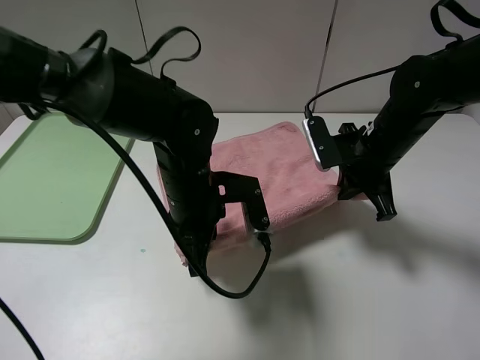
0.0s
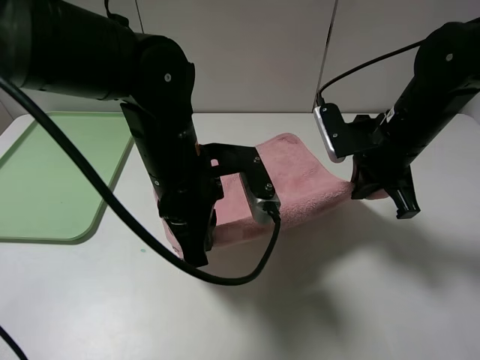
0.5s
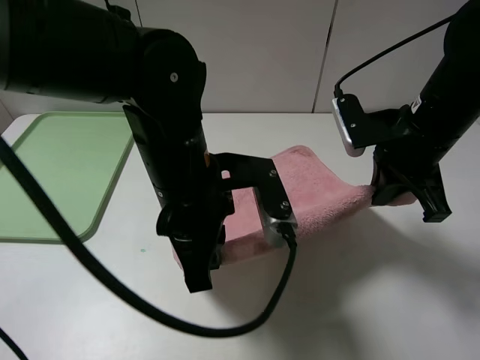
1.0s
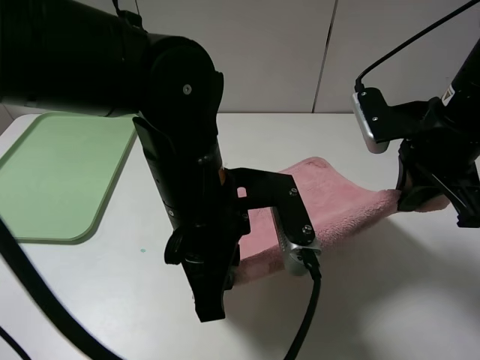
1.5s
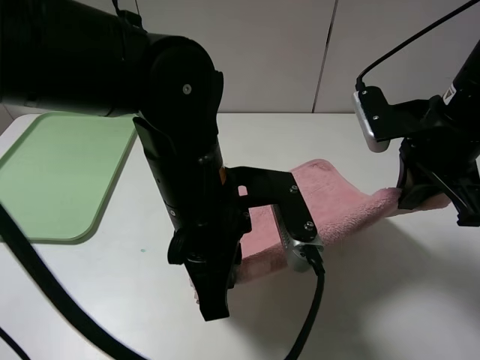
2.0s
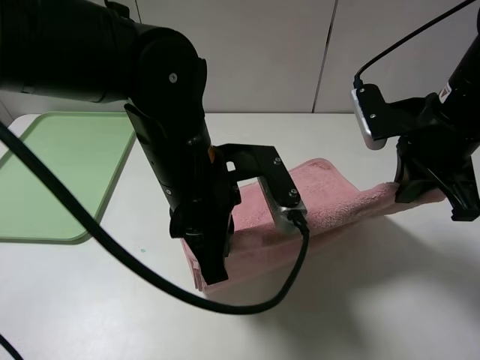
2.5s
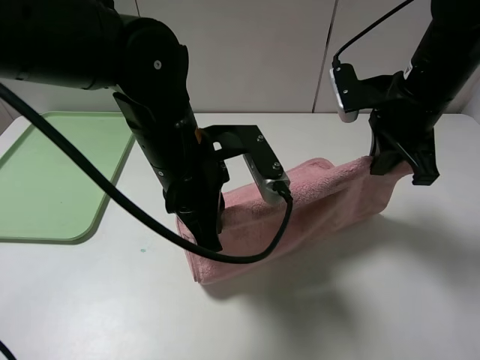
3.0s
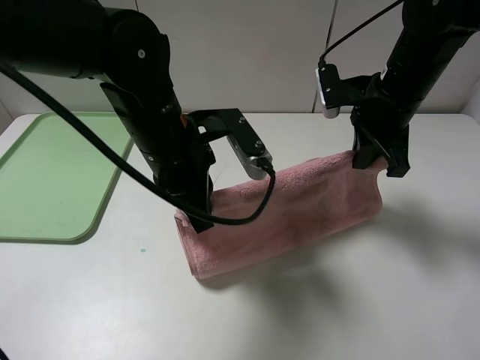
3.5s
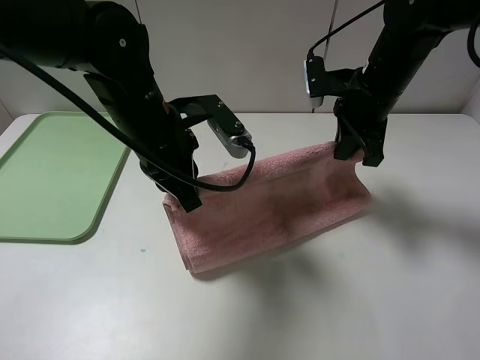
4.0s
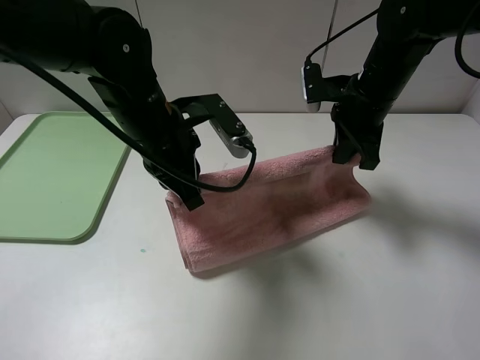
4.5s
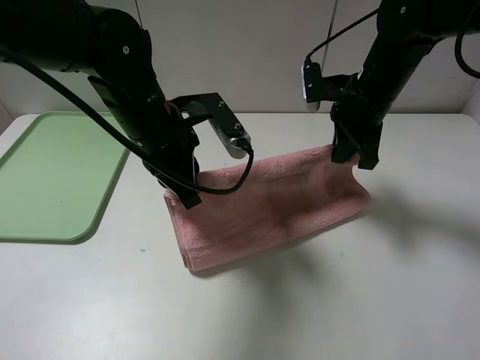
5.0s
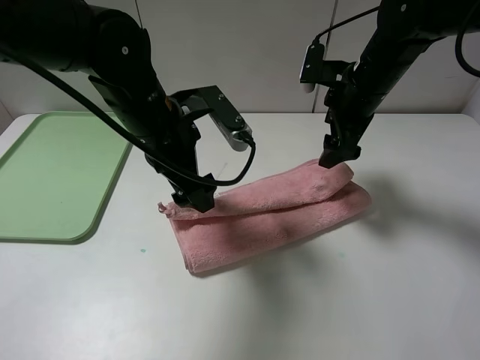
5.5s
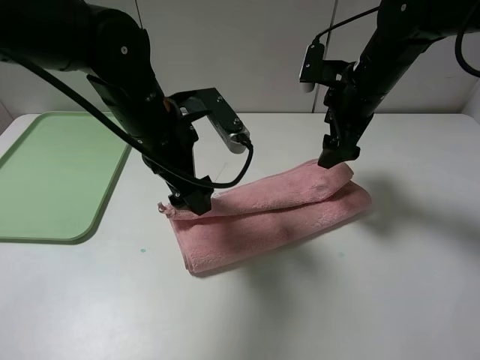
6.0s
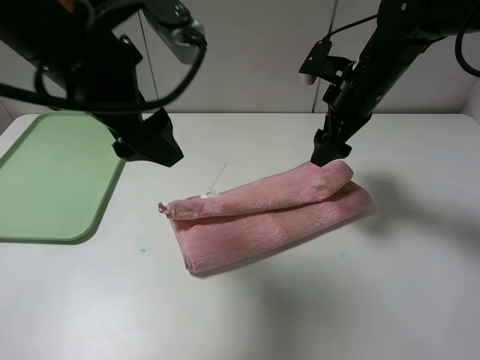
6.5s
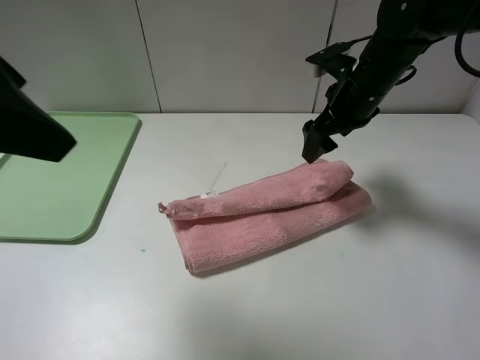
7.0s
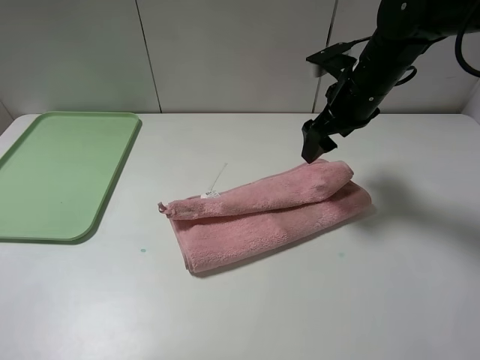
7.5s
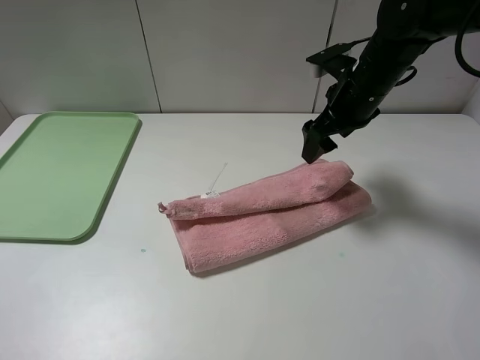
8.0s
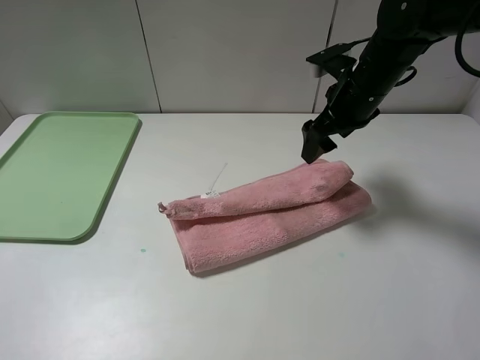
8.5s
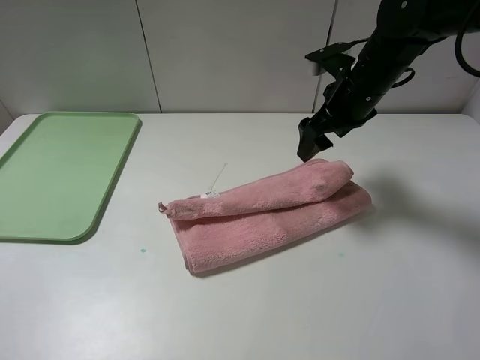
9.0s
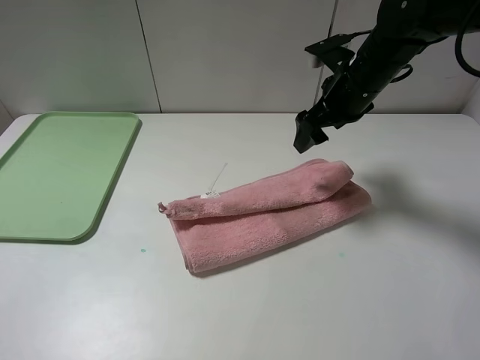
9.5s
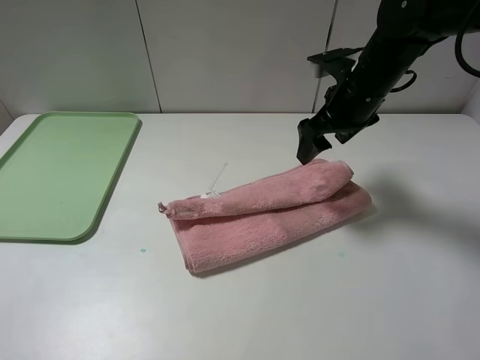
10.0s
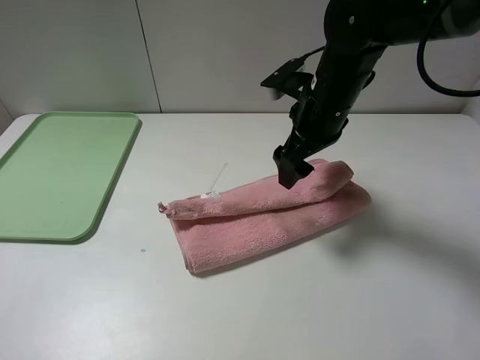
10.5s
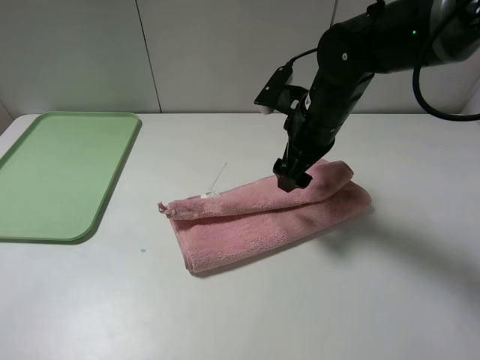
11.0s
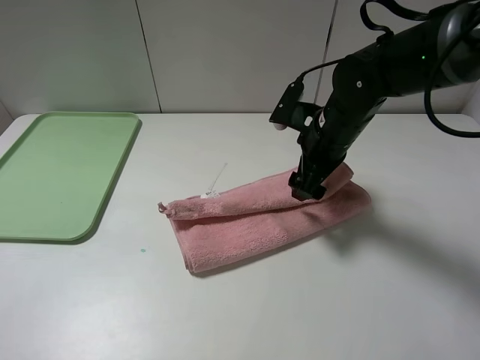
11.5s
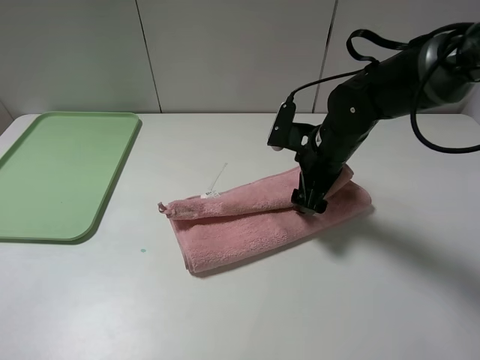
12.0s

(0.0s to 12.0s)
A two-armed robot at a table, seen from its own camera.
Step, 0.0s - 5.0s: Fold the pink towel upwards.
0.0s - 2.0s: The left gripper travels backward and upward by some 10 cm. Meanwhile the right gripper travels upward and backward by some 10 cm.
2.0s - 4.0s: The left gripper moves forward and to the left, some 10 cm, while the right gripper shifts roughly 10 cm forward.
4.0s - 6.0s: The right gripper opens up. Meanwhile the left gripper opens its fingers.
6.0s - 8.0s: The left gripper travels backward, to the left and upward by roughly 40 cm.
10.0s - 12.0s: The right gripper moves downward, approximately 10 cm.

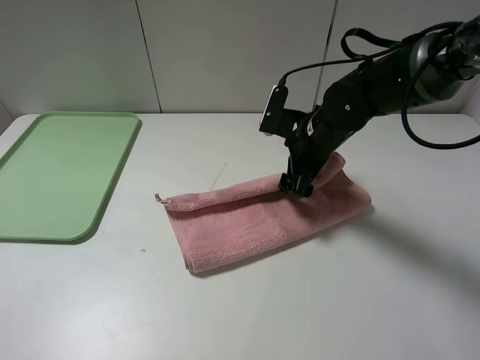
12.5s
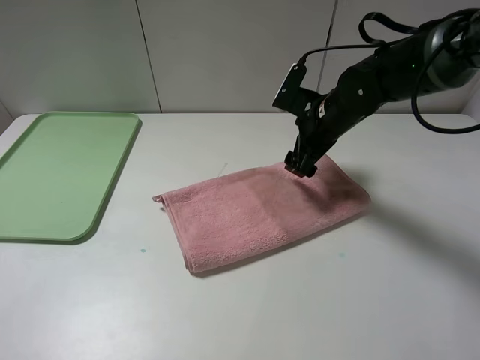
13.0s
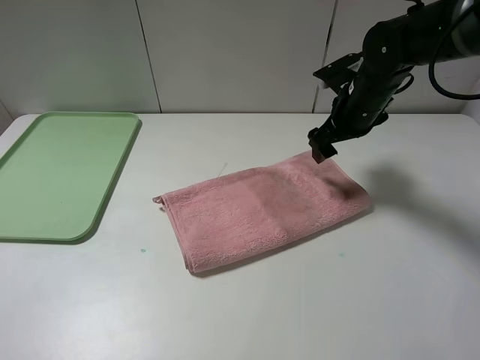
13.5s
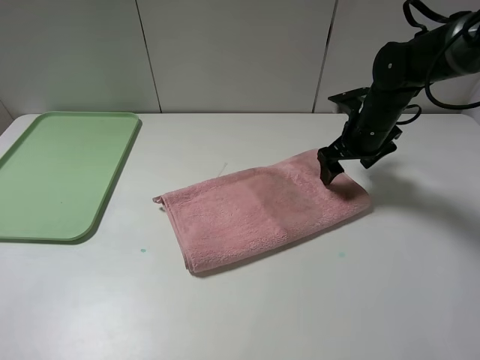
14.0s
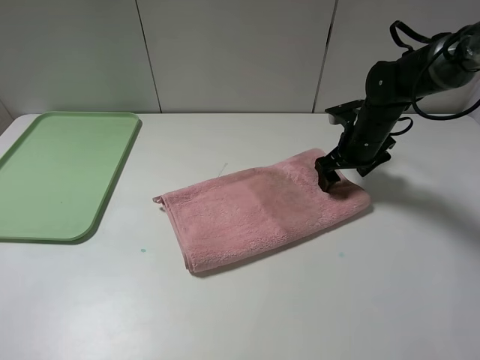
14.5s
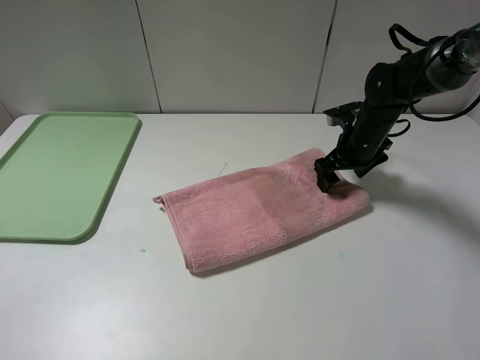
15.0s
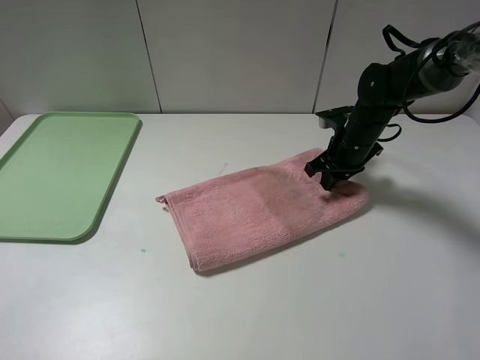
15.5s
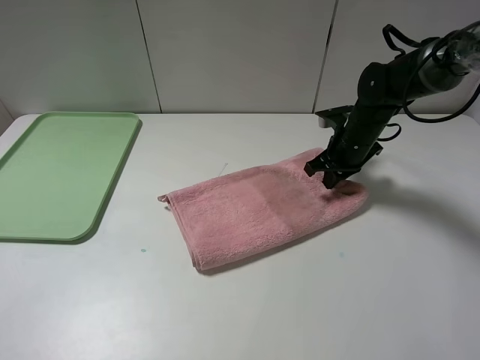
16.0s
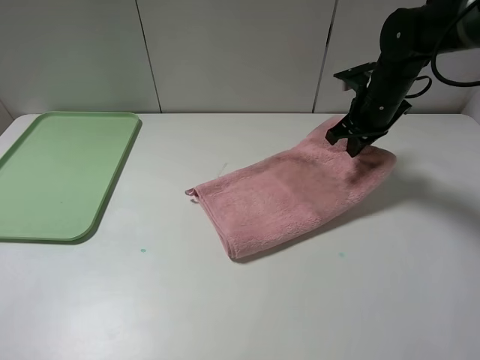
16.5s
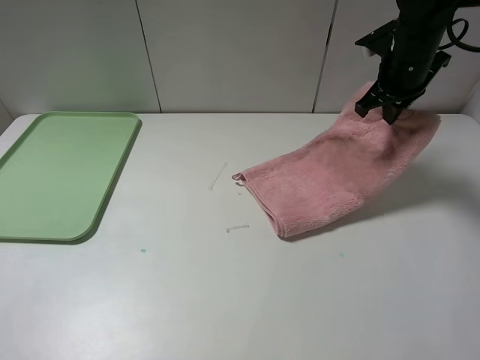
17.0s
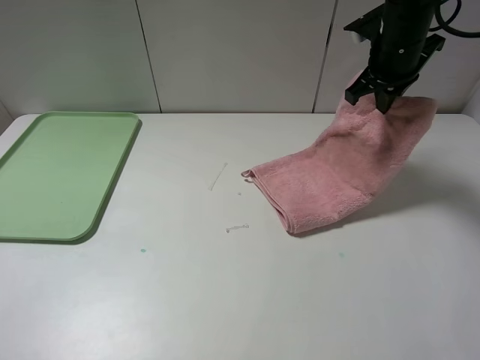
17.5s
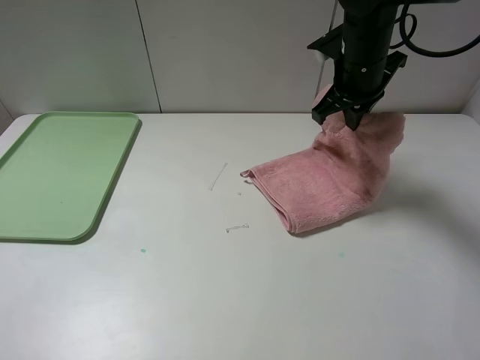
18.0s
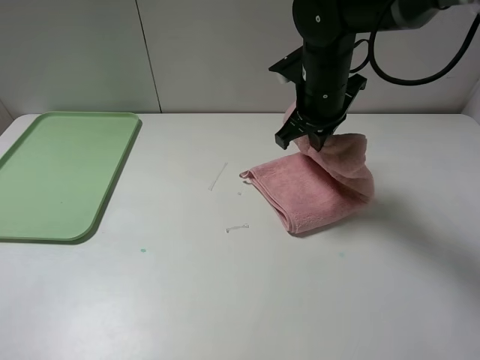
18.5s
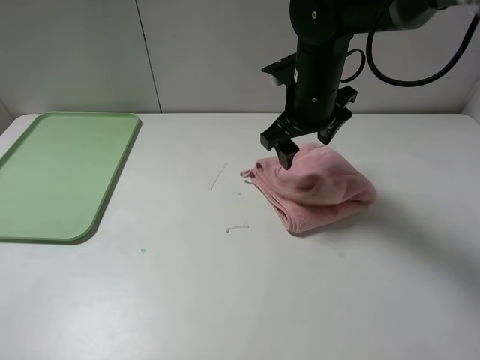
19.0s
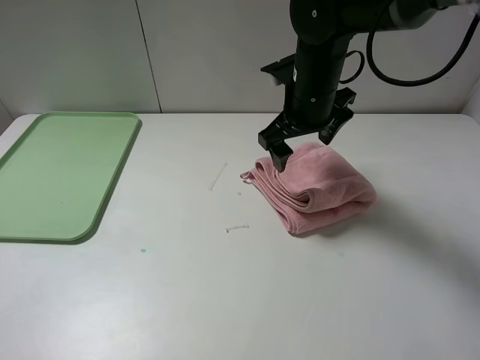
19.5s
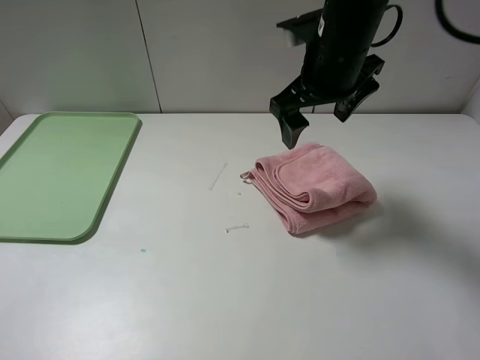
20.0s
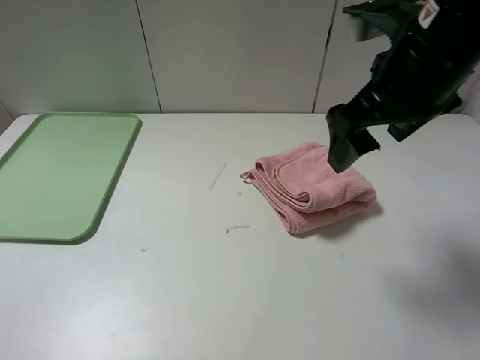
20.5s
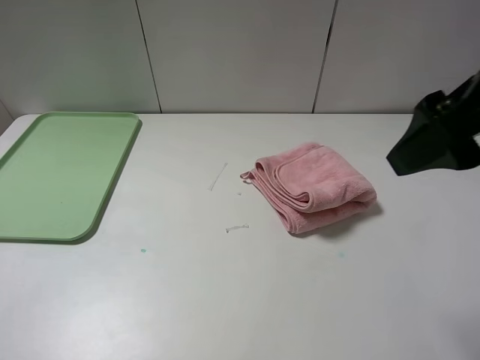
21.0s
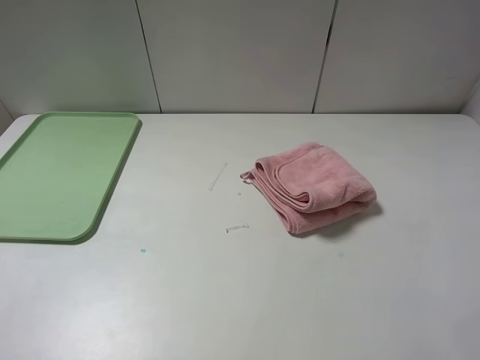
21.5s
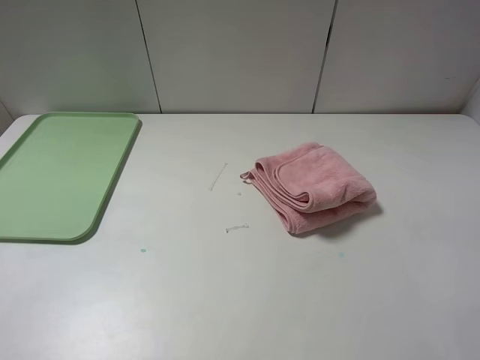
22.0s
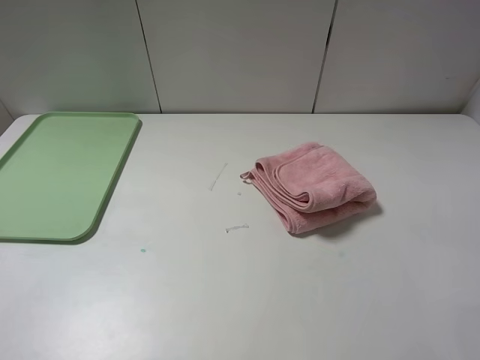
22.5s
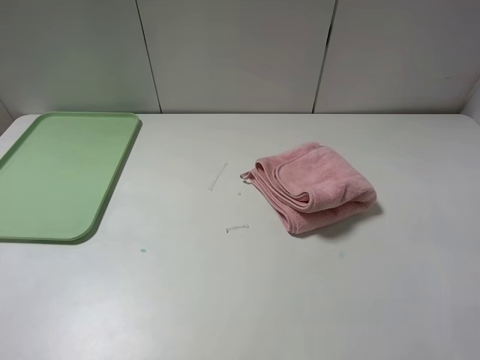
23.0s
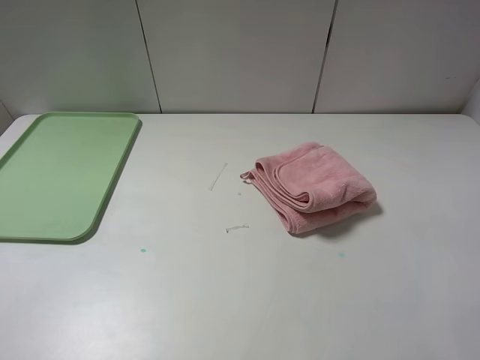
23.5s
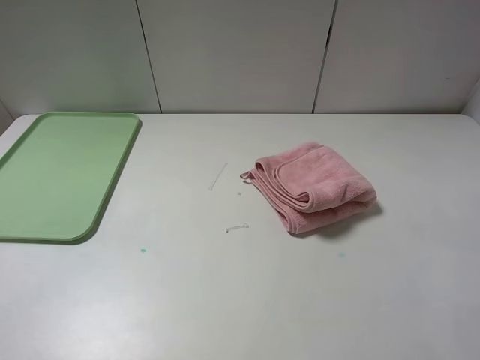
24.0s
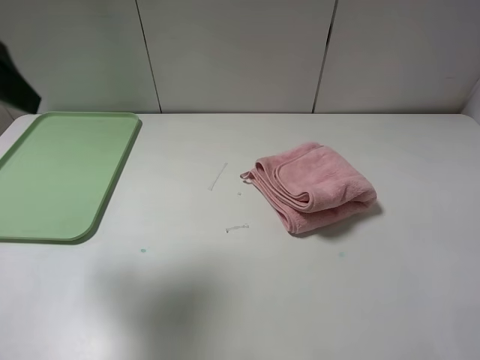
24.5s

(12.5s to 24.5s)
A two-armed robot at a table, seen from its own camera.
Step, 12.5s - 19.0s: Fold the pink towel from right to left with right gripper.
12.5s - 14.5s: The right gripper shifts roughly 10 cm to the right and forward.
14.5s - 16.5s: The right gripper goes roughly 5 cm upward, and closes.
16.5s - 18.5s: The right gripper is displaced to the left by approximately 10 cm.
18.5s - 20.5s: The right gripper heads backward, upward and to the right, covering some 15 cm, and opens up.
20.5s - 22.5s: The right gripper travels backward and to the right by roughly 25 cm.
22.5s - 24.5s: The left gripper shifts roughly 20 cm forward.

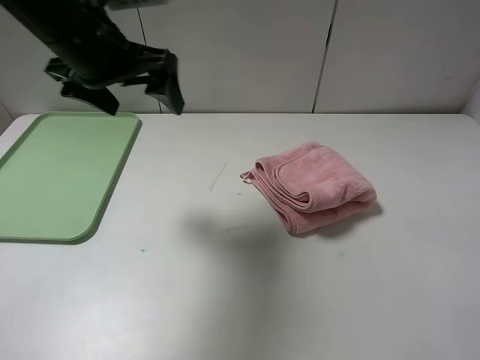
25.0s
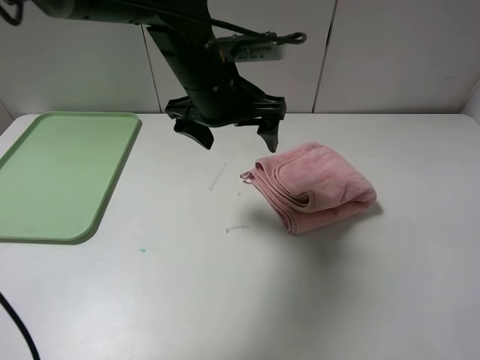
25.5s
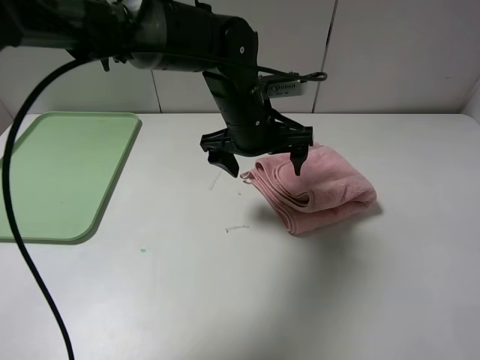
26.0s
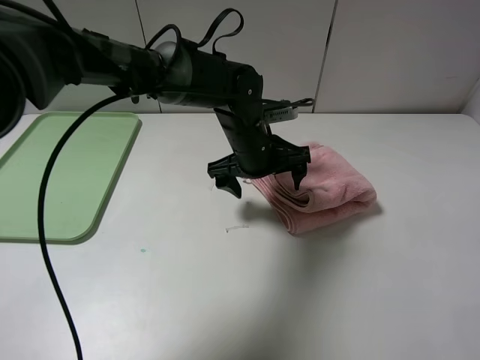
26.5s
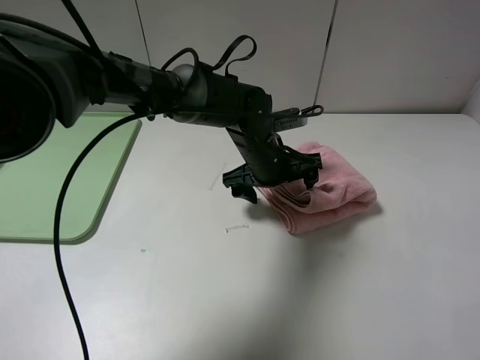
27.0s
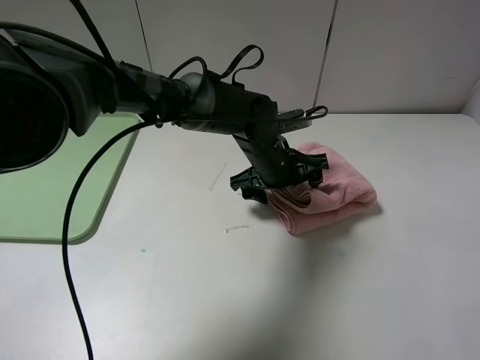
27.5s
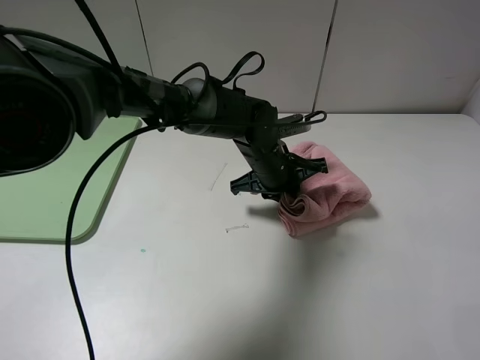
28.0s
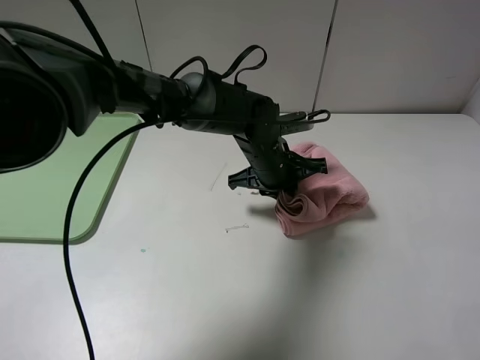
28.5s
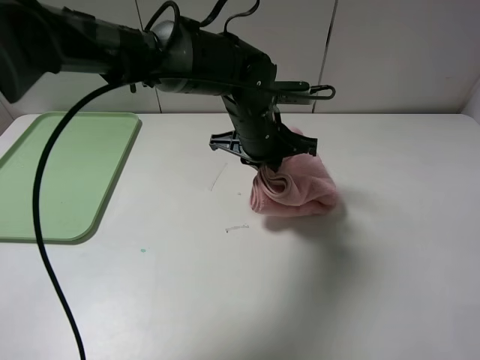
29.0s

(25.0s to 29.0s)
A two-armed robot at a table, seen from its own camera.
25.0s - 27.0s: The left gripper heads downward and to the right, covering approximately 25 cm.
27.0s - 29.0s: The left gripper heads upward, covering about 5 cm, and closes its fingers.
